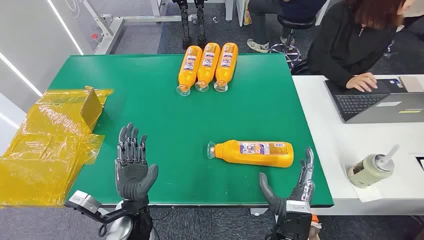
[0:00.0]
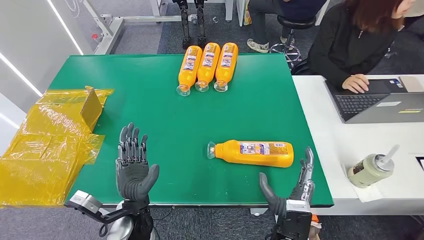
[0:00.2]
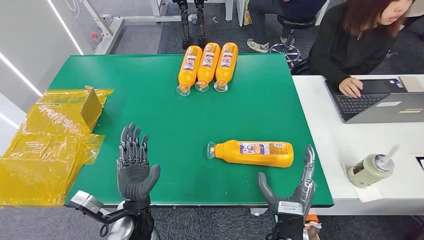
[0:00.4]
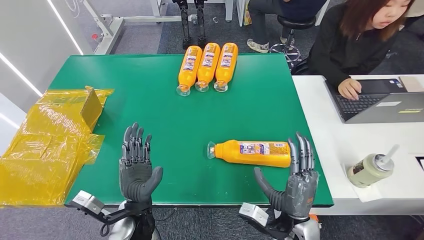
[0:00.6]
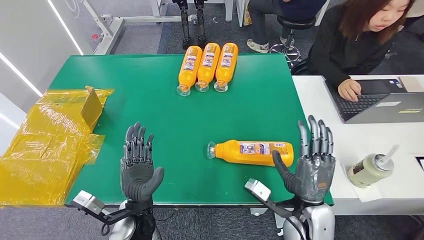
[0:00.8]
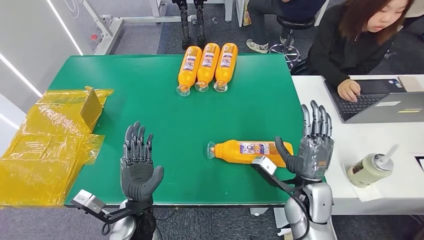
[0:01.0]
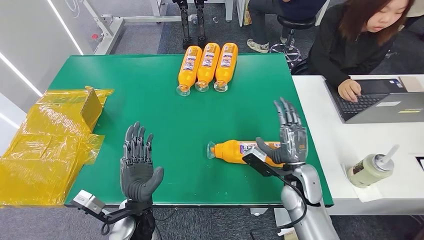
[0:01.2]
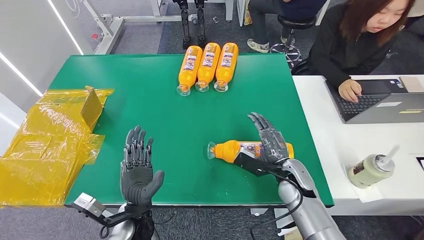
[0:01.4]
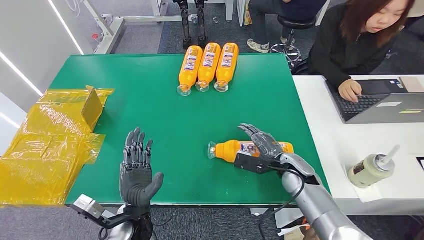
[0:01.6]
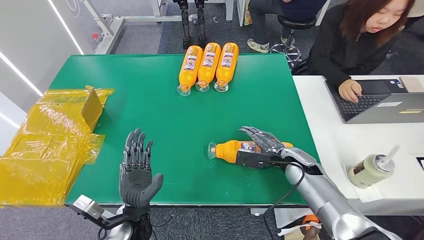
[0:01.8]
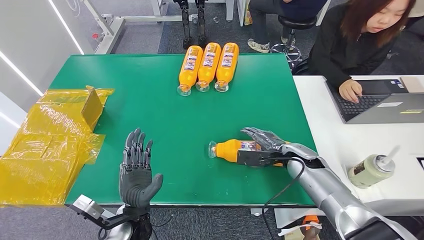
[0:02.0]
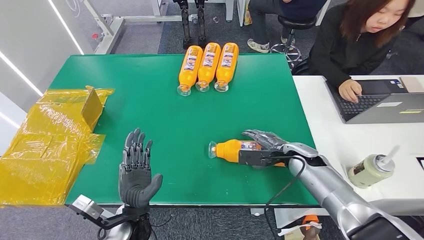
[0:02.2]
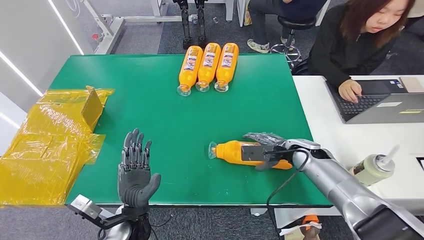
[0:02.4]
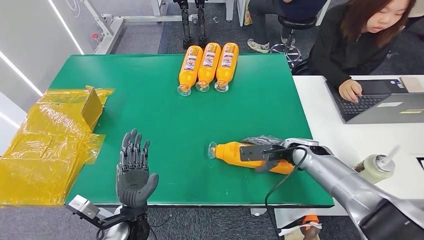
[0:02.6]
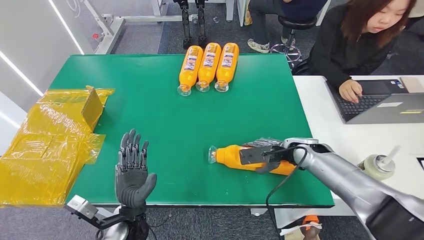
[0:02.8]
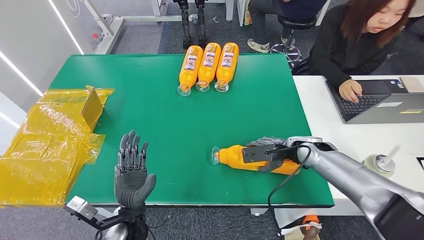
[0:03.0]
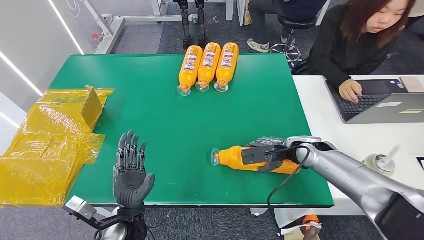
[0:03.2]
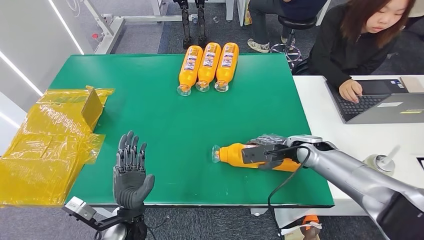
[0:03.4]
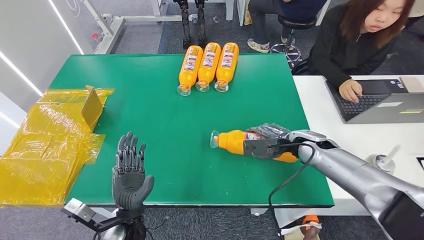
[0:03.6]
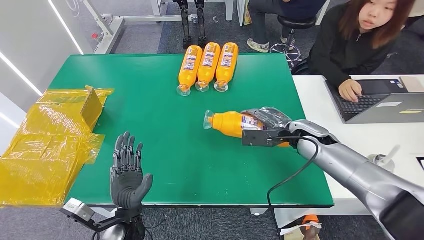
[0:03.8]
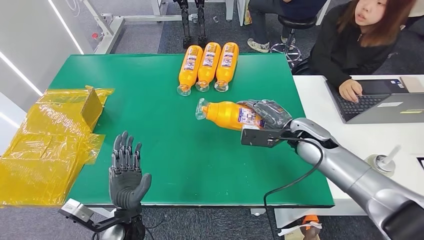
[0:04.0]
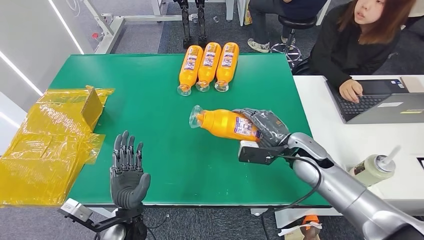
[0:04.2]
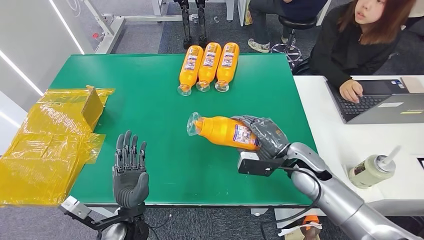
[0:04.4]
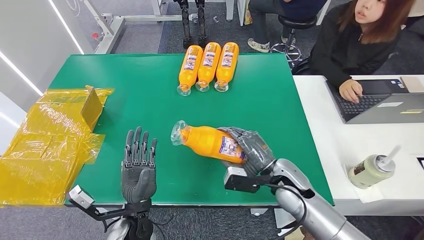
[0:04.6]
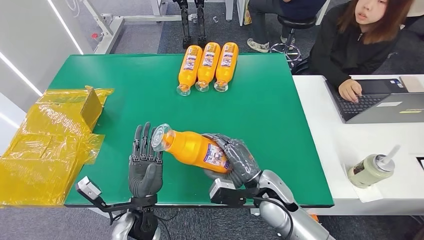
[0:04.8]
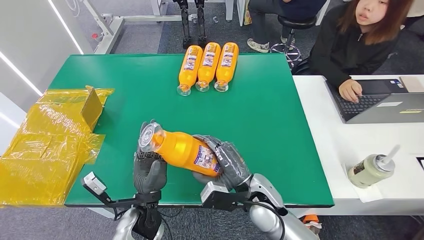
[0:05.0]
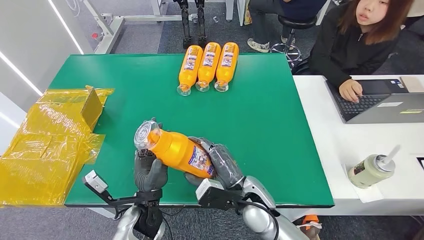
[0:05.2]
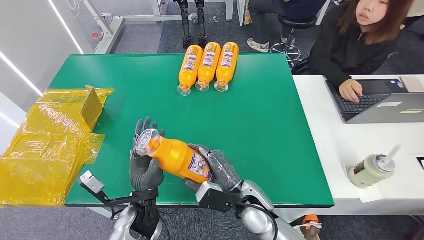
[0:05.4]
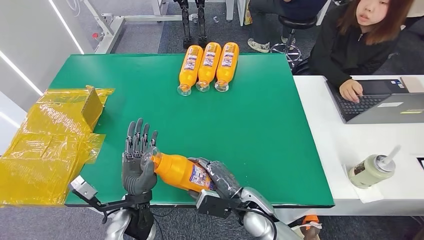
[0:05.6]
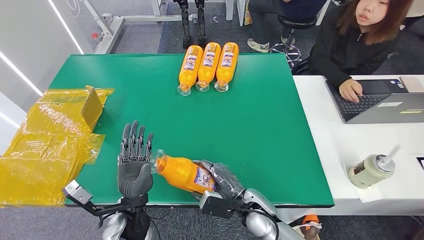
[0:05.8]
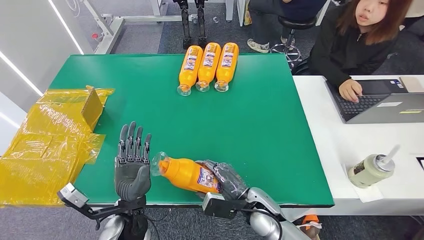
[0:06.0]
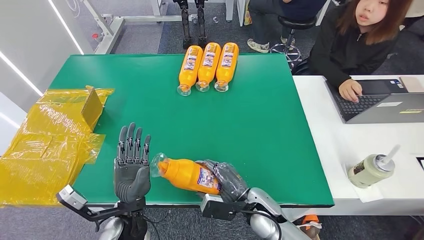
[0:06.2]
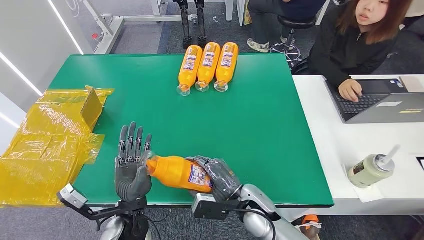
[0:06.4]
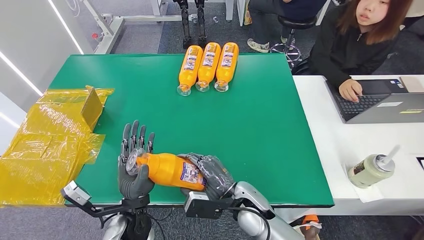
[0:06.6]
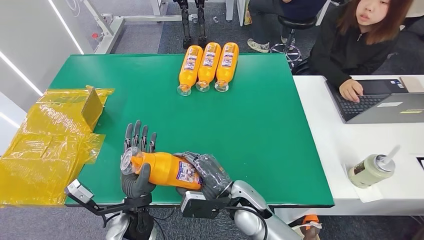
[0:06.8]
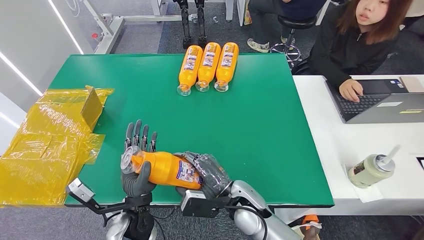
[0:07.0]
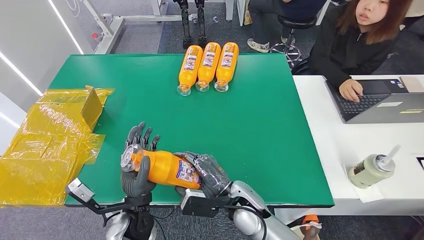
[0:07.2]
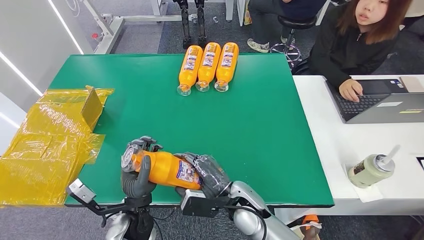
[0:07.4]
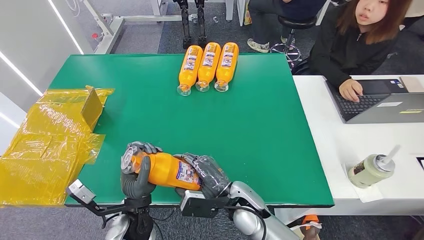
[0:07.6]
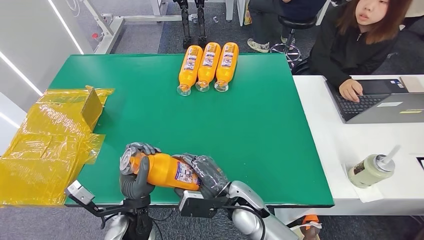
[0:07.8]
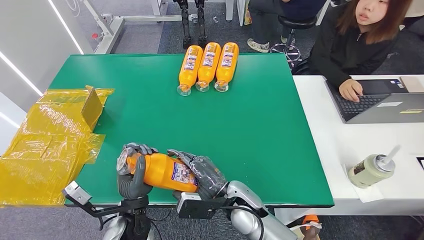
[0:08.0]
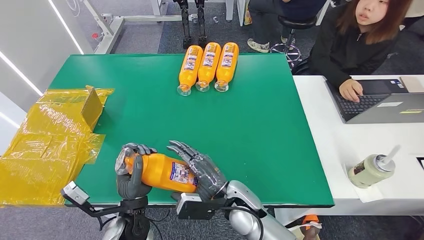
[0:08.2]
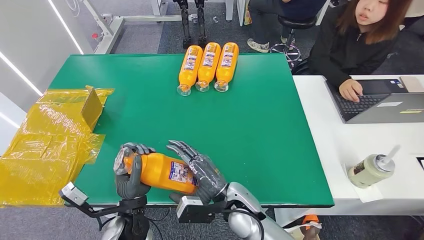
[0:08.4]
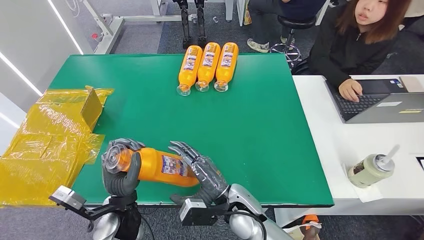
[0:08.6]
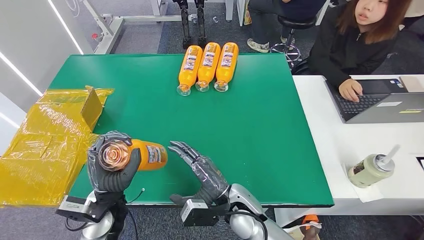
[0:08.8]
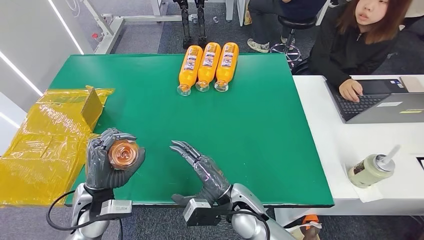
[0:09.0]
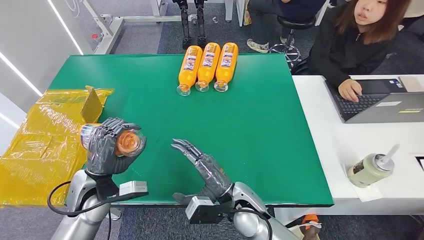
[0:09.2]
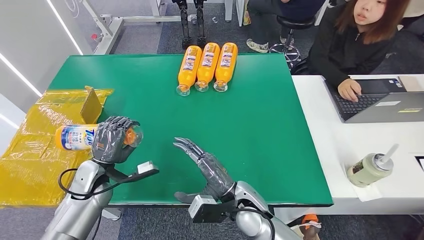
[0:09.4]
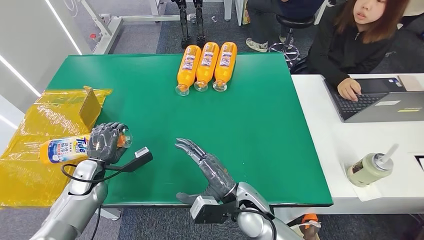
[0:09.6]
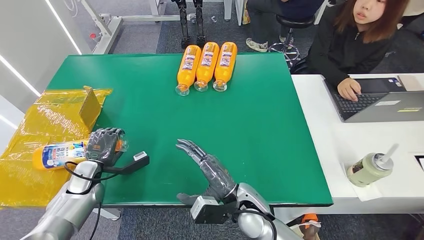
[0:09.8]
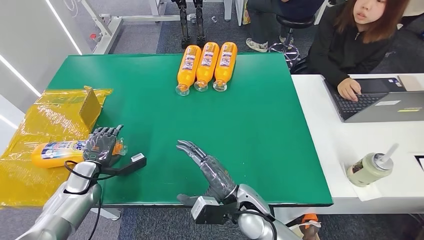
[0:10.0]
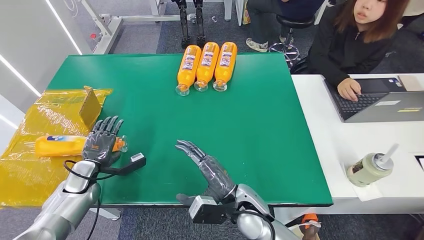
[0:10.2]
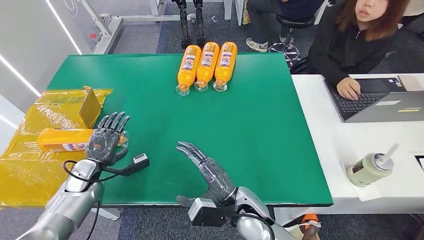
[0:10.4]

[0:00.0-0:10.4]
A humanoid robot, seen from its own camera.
Step, 0:00.0 to 0:04.0: Pick up the bottle from the table.
Step, 0:04.2 to 0:10.4: Turn the bottle to the front side.
0:01.4 to 0:03.0: The right hand travels forward, to the right and upward by approximately 10 cm.
0:03.0 to 0:04.4: The right hand heads backward and to the left, covering roughly 10 cm.
0:04.4 to 0:06.0: The right hand travels to the left, downward and backward by roughly 15 cm.
0:06.0 to 0:07.4: The right hand moves to the left, approximately 5 cm.
0:07.4 to 0:09.0: The left hand is displaced to the left by approximately 10 cm.
0:09.0 to 0:10.4: The left hand travels to the left, downward and forward by approximately 15 cm.
